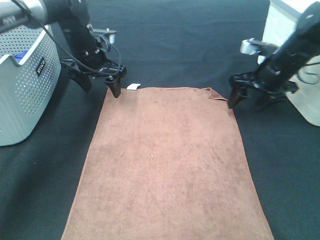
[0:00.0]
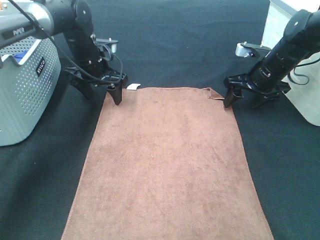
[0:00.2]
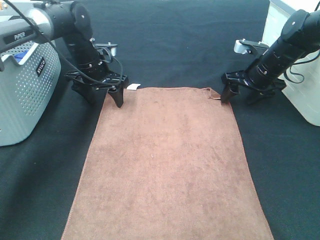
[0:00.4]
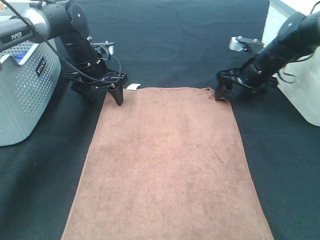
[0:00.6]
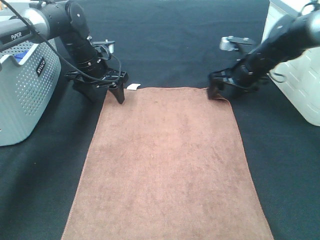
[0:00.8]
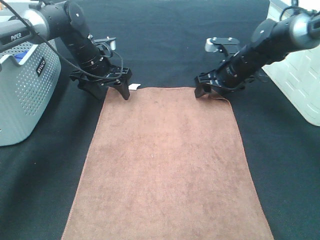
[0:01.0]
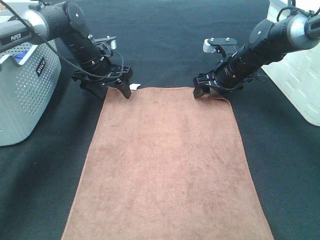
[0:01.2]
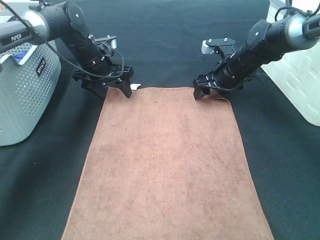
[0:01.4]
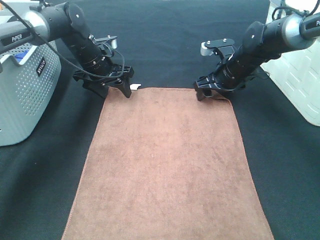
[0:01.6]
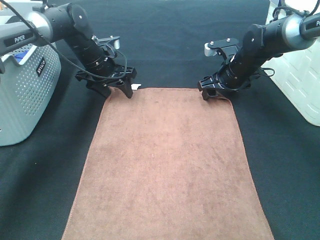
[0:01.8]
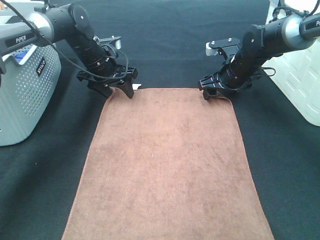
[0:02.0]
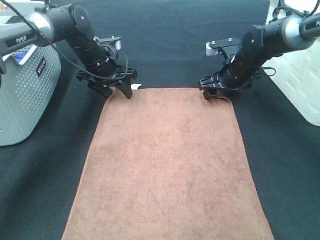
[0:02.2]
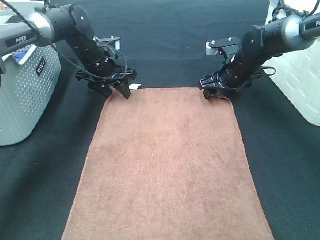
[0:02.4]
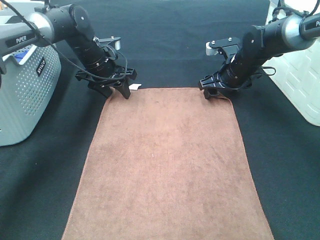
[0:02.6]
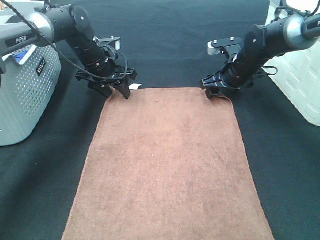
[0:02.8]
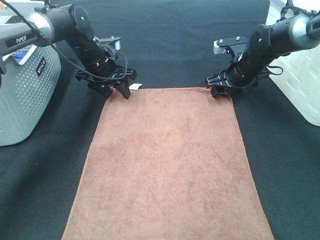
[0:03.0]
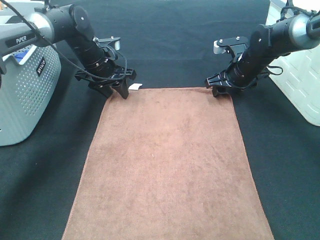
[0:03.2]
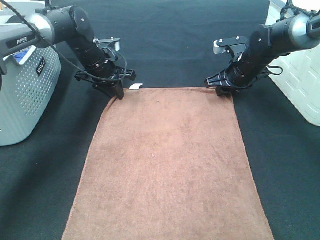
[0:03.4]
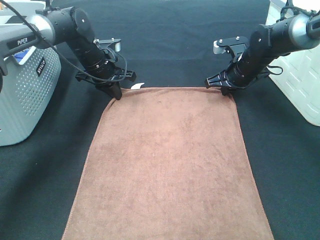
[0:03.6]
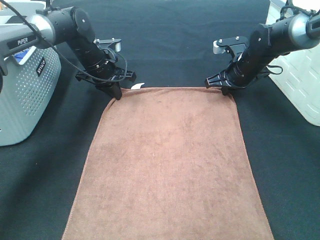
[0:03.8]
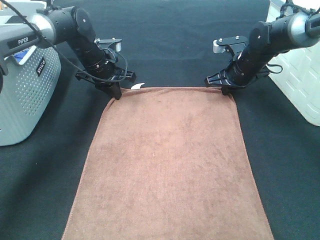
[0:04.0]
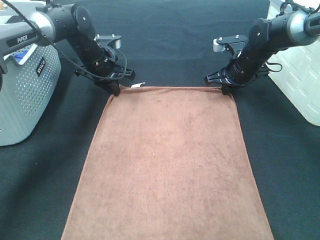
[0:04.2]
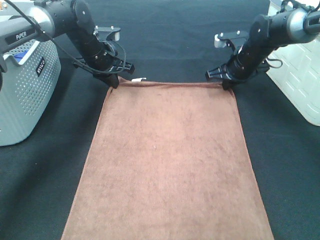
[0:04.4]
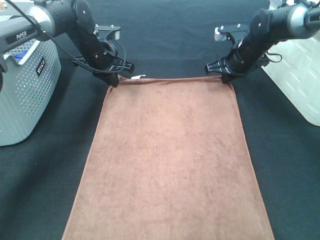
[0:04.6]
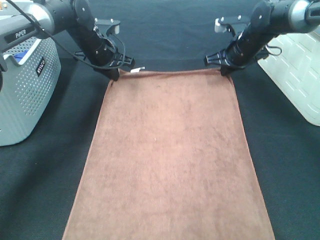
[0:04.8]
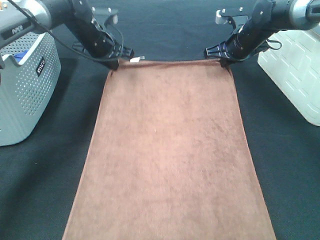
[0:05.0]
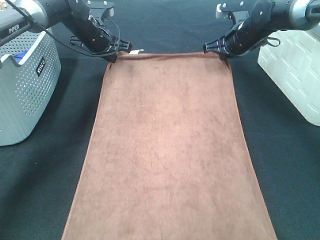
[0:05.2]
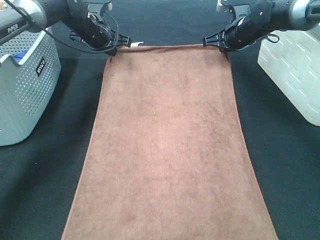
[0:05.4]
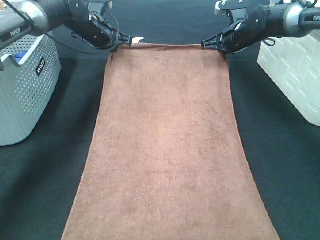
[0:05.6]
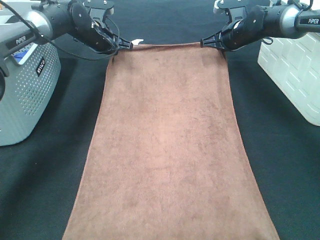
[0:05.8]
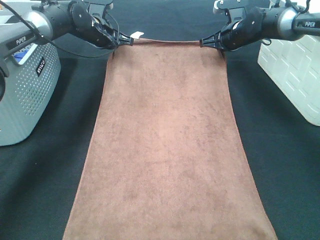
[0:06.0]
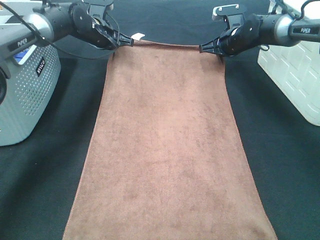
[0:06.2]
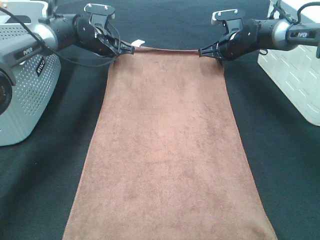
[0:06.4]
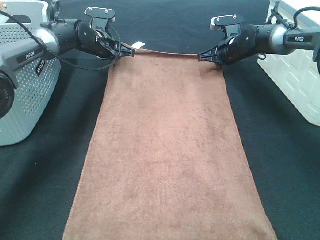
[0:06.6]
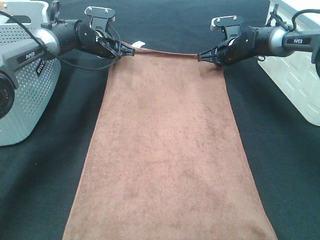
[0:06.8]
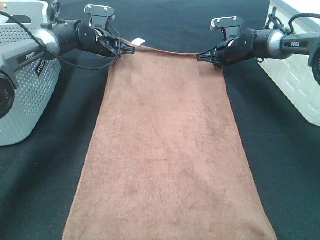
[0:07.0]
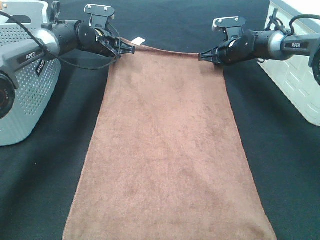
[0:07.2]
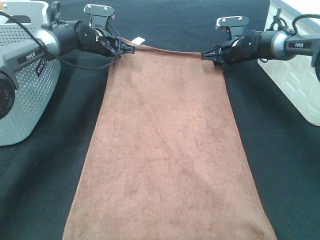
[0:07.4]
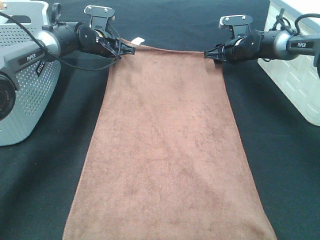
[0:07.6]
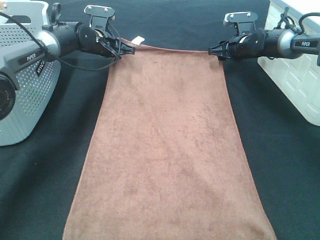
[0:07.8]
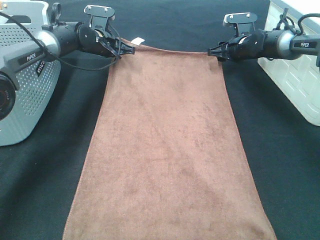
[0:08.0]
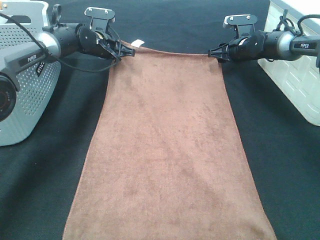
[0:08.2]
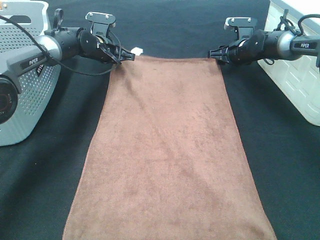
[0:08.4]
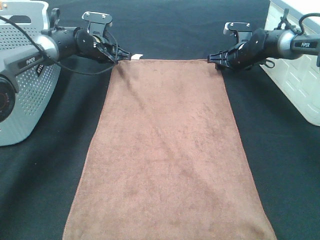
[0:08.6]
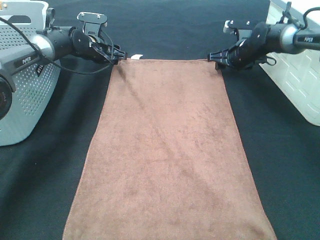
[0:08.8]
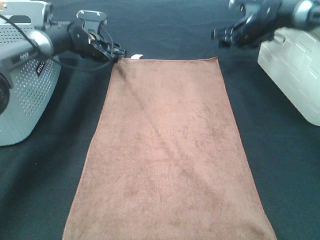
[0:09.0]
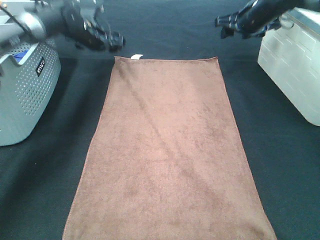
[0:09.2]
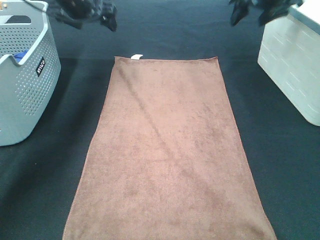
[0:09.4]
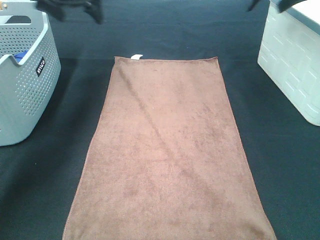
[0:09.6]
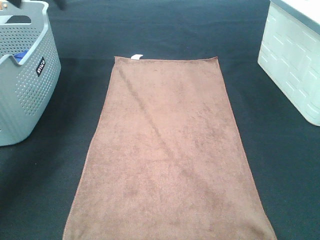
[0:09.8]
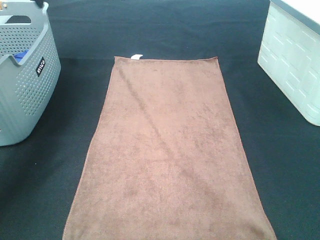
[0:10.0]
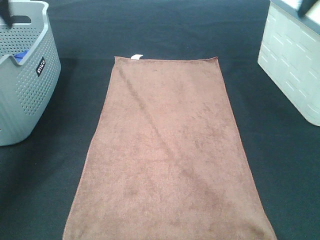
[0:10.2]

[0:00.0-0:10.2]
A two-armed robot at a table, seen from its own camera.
Task of the whole recording: Remove the towel and place it.
Step, 0.0 to 2.2 s: Left hand:adjust the brown towel.
Step, 0.0 to 2.2 s: Right hand:adjust the brown towel.
0.0 to 1.4 s: The right gripper shifts approximately 5 cm to the left.
1.4 to 3.0 s: The grippers make only small movements.
3.0 to 4.4 s: The left gripper closes its fingers. The right gripper closes.
4.4 to 5.8 s: The right gripper travels forward by about 5 cm.
5.8 to 7.2 s: The right gripper moves downward, about 5 cm.
7.2 to 8.8 s: The left gripper opens up.
8.8 to 10.2 s: The left gripper moves upward, backward and to the left, roughly 35 cm. The right gripper heads upward and backward, covering approximately 35 cm.

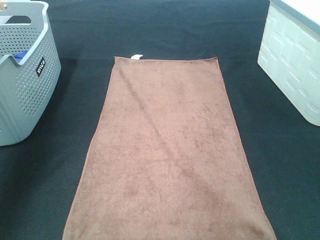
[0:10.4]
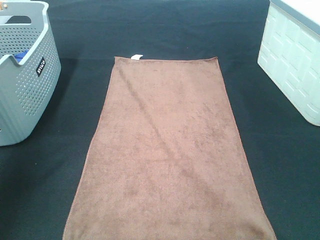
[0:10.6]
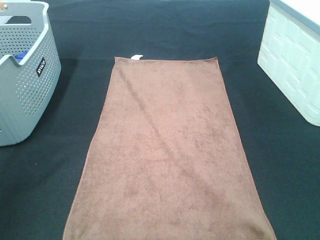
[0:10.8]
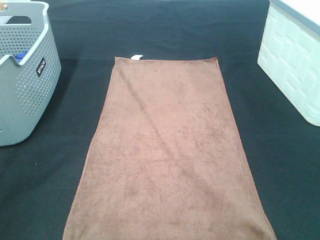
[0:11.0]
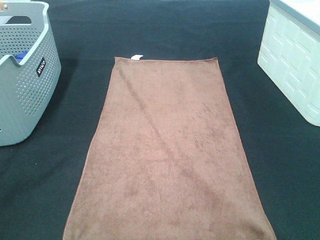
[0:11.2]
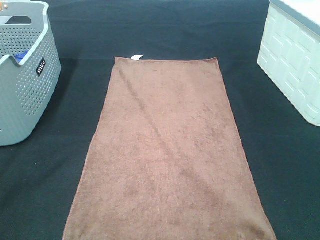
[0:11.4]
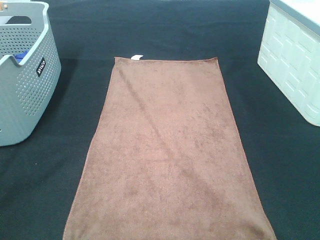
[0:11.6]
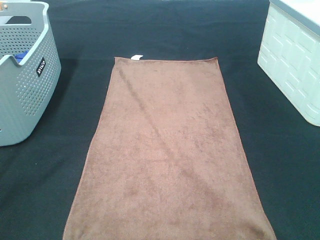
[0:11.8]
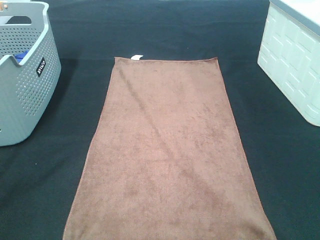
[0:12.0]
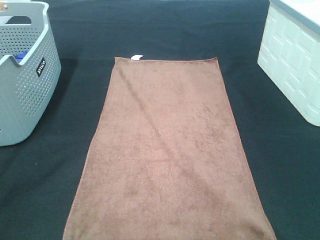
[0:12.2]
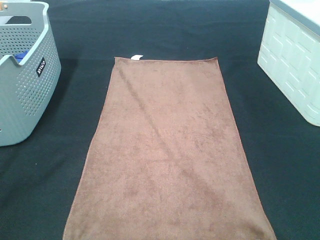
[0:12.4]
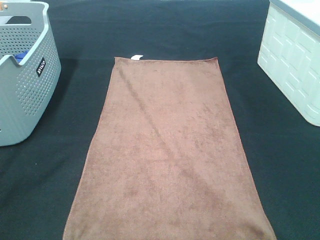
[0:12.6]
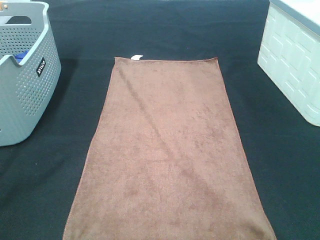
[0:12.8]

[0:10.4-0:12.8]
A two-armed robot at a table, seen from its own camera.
Task of the whole recording: Remove the towel and place it.
10.4 to 11.6 s: The two grippers go about 25 cm backward.

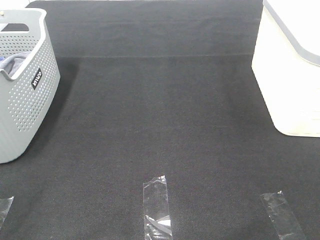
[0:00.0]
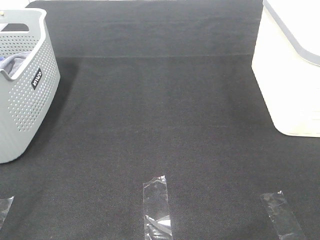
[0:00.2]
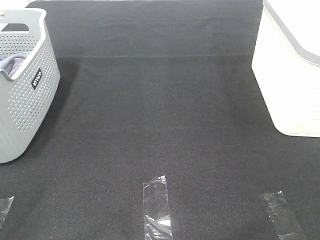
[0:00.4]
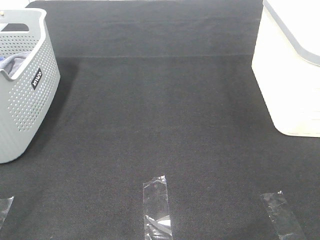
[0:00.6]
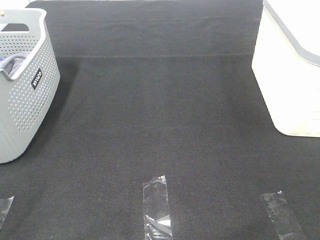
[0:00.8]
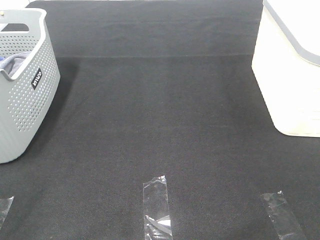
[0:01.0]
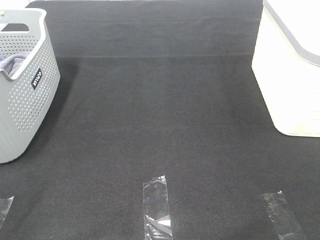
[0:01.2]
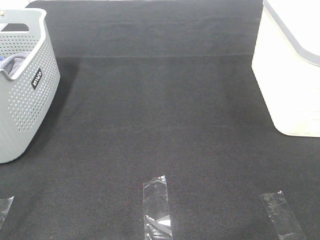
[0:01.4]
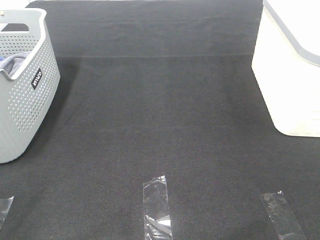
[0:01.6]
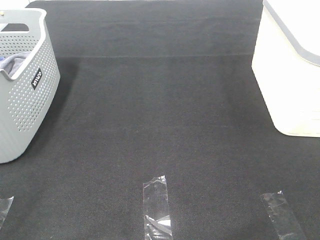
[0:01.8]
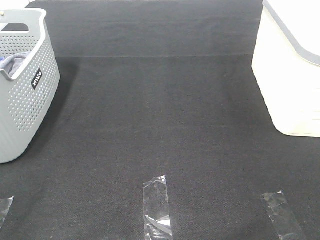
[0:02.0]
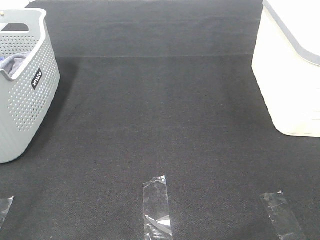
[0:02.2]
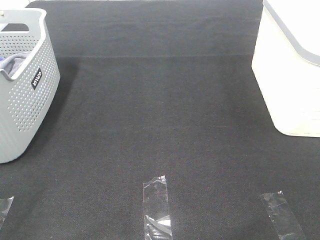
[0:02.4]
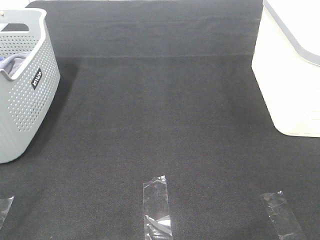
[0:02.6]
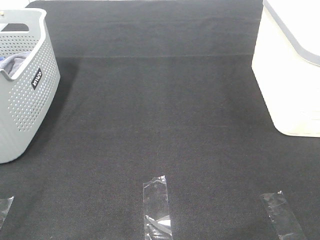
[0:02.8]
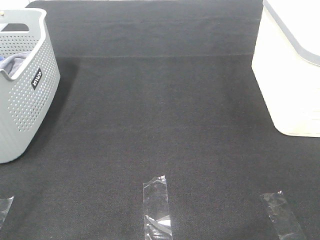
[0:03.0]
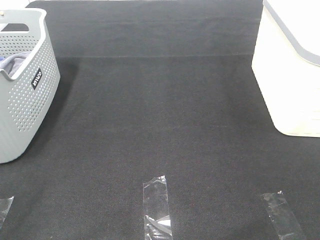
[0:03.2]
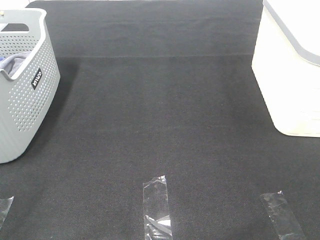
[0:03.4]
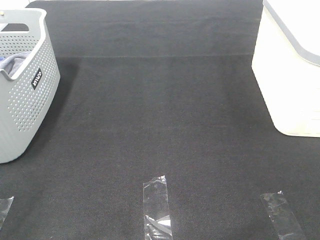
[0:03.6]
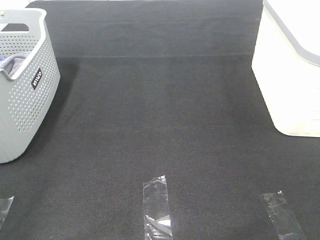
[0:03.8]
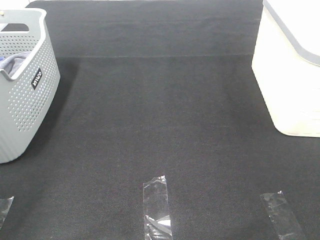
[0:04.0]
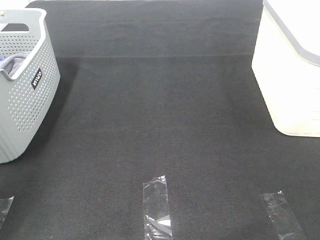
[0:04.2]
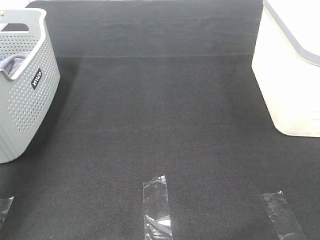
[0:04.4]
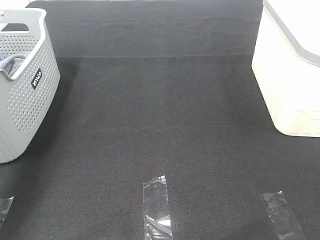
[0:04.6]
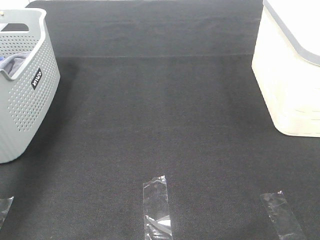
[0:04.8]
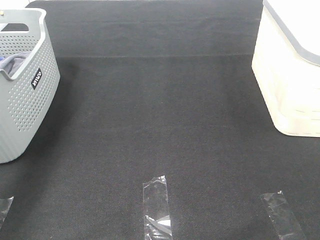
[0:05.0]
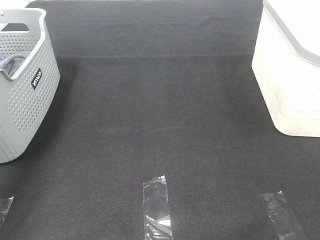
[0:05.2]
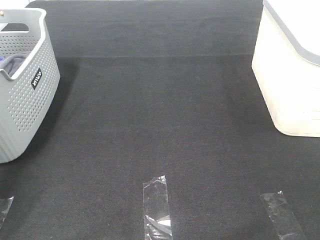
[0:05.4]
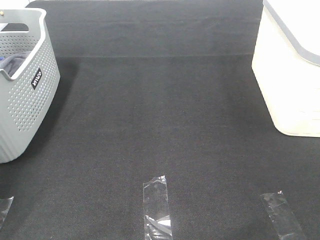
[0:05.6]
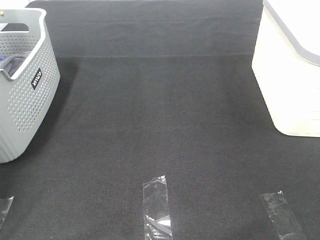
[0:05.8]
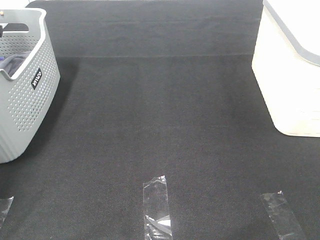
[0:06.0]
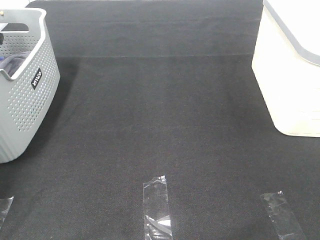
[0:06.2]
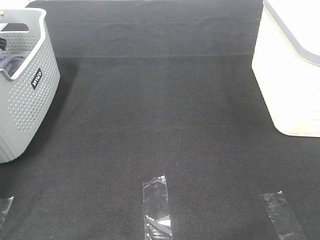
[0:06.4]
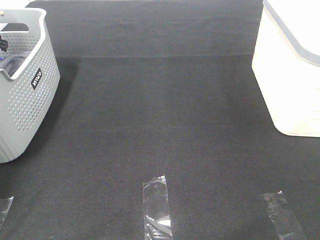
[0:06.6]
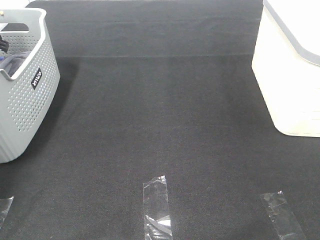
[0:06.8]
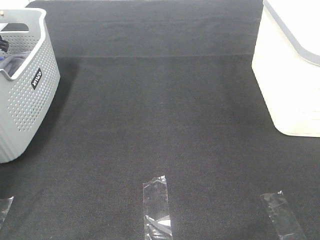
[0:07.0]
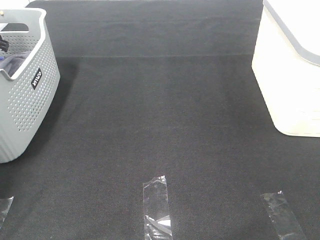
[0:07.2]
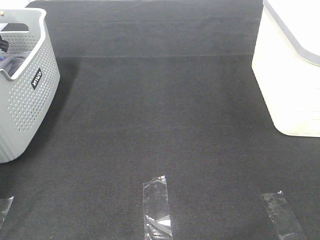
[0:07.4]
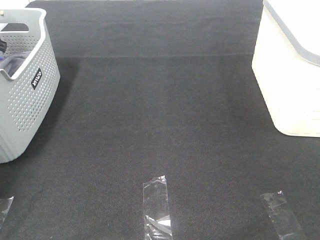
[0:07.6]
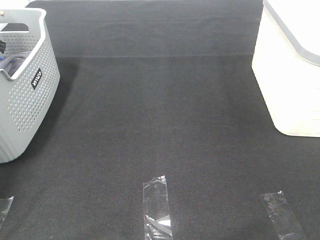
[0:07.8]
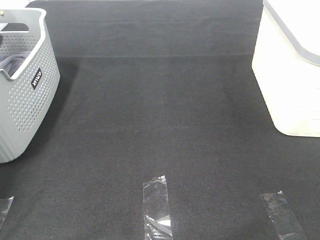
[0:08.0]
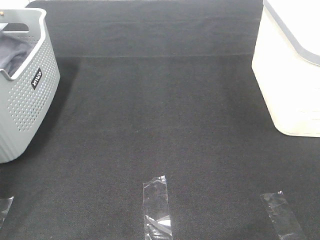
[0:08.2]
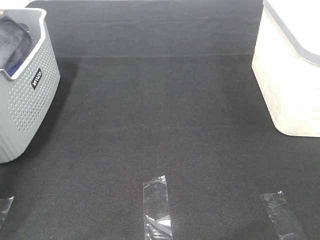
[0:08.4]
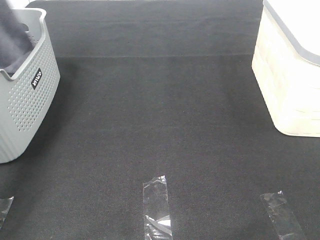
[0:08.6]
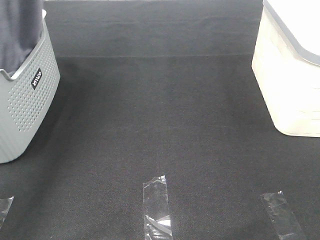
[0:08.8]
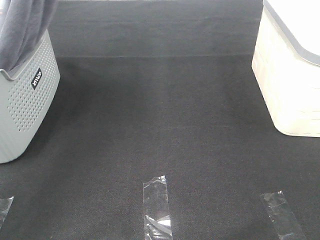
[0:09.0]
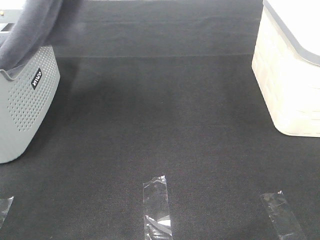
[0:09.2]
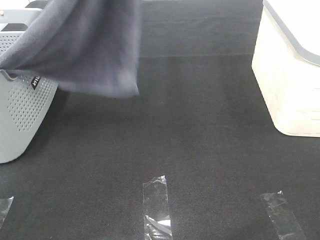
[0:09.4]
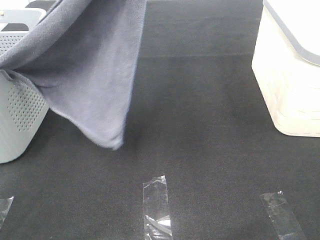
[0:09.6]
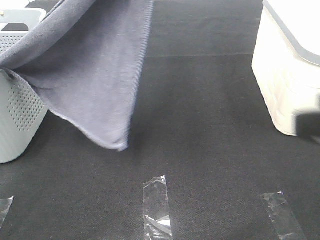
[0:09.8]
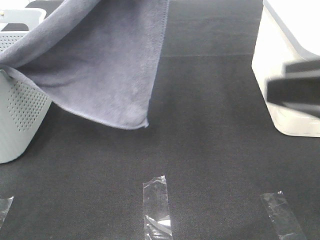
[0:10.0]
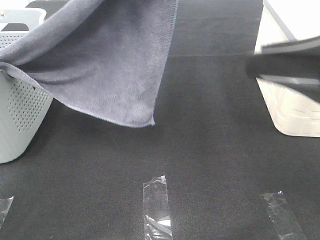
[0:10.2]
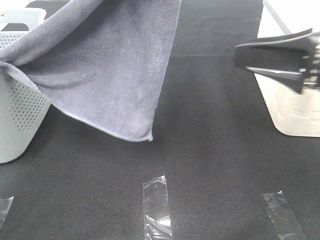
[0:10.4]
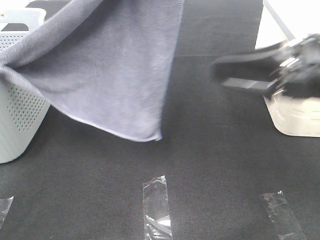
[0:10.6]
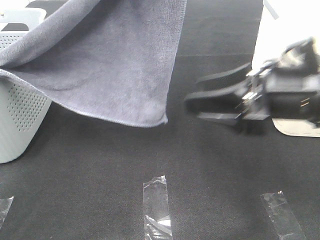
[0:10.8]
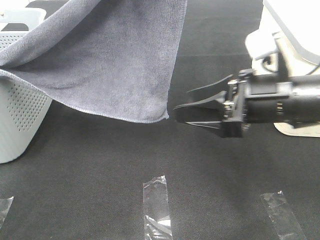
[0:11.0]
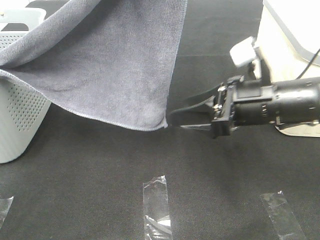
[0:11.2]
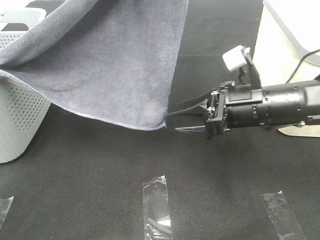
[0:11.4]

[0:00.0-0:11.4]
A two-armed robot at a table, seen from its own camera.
Task of the whole recording: Remove the towel and place it.
0.0 to 2.8 s: Both grippers stay put.
2.8 to 4.2 s: The left gripper goes about 20 cm forward.
4.2 to 5.6 s: The left gripper travels forward by roughly 30 cm.
7.2 to 8.6 s: The left gripper shifts some 25 cm upward and to the right, and closes up.
8.6 to 10.0 s: The left gripper travels to the right and backward by approximately 25 cm. The right gripper is displaced forward and to the left by about 15 cm.
10.0 to 11.4 s: The right gripper goes approximately 20 cm downward, forward and to the left.
